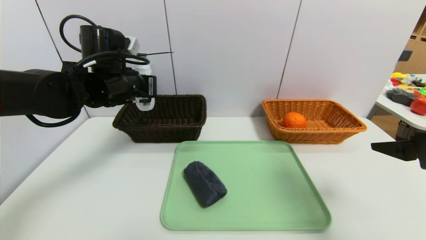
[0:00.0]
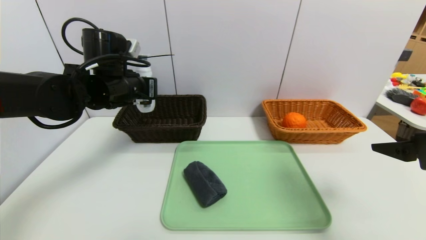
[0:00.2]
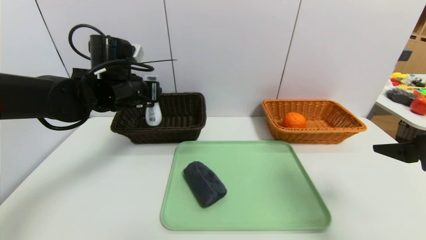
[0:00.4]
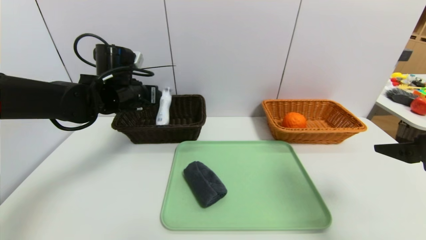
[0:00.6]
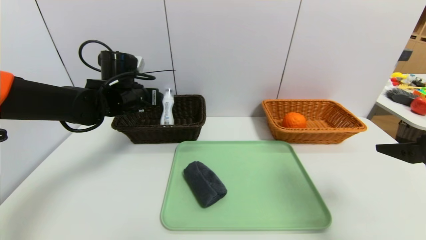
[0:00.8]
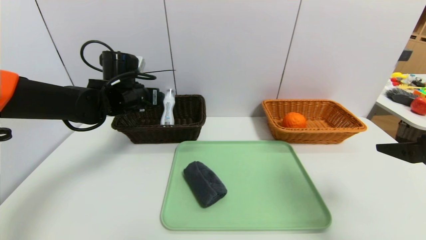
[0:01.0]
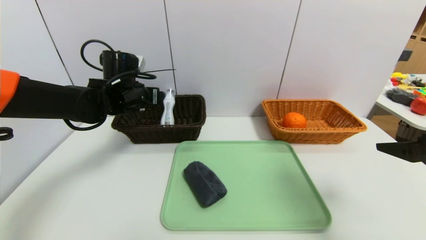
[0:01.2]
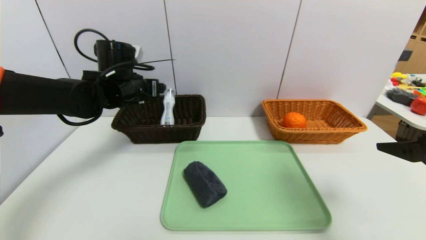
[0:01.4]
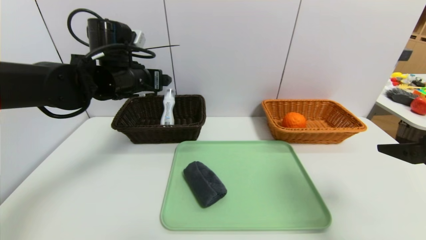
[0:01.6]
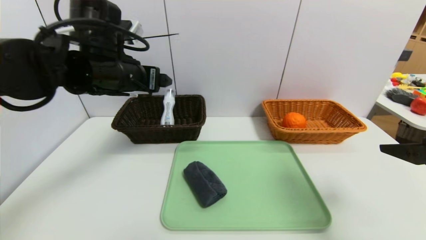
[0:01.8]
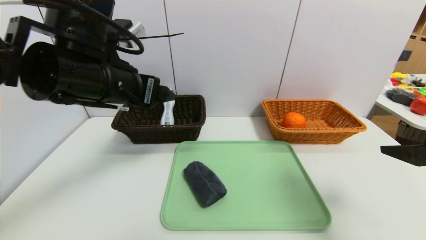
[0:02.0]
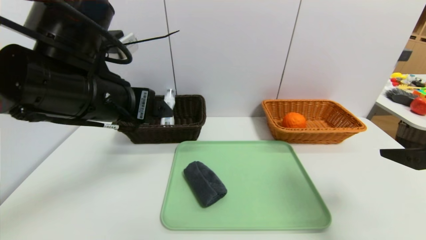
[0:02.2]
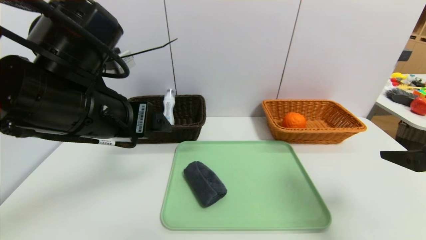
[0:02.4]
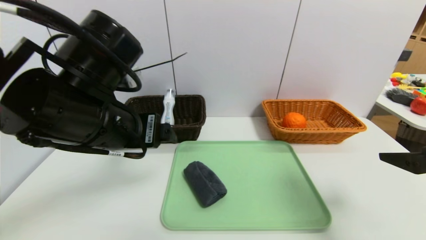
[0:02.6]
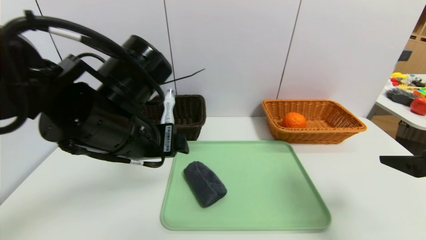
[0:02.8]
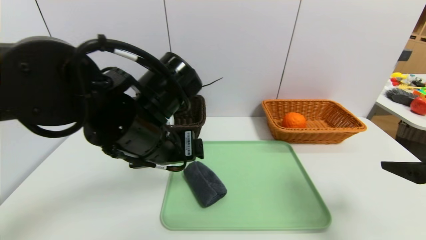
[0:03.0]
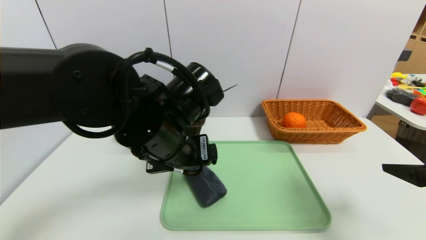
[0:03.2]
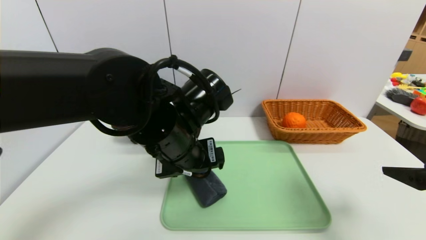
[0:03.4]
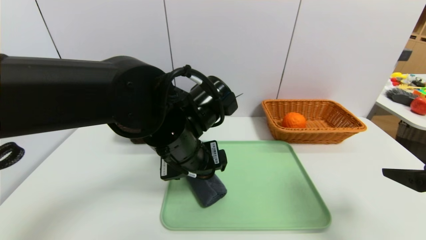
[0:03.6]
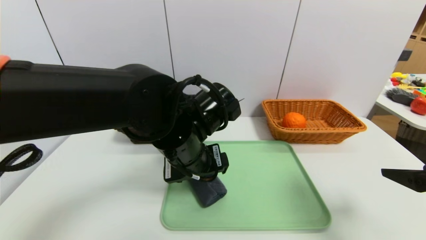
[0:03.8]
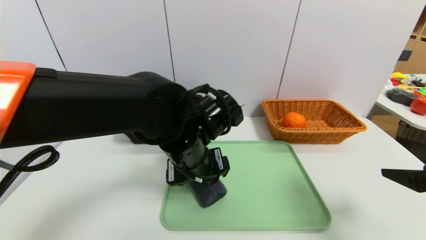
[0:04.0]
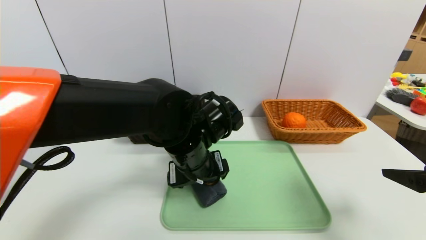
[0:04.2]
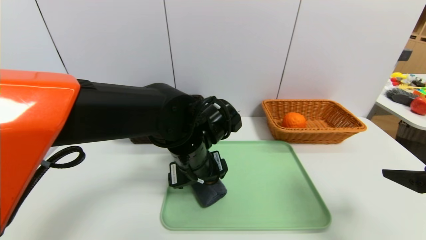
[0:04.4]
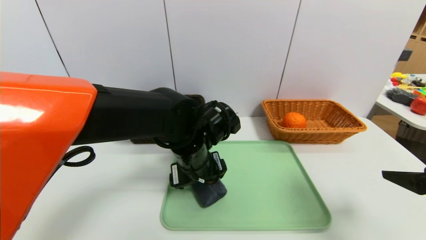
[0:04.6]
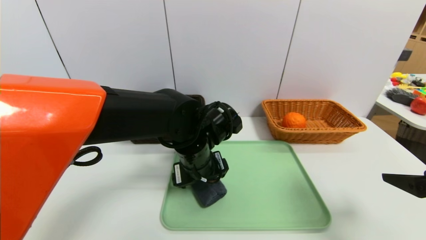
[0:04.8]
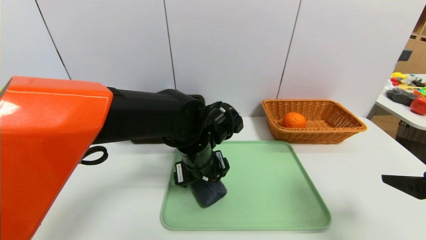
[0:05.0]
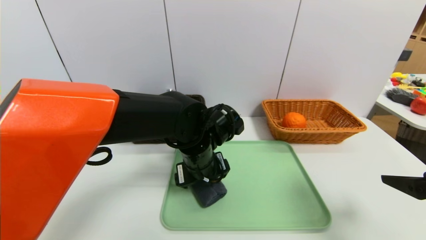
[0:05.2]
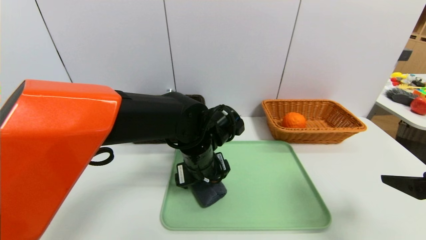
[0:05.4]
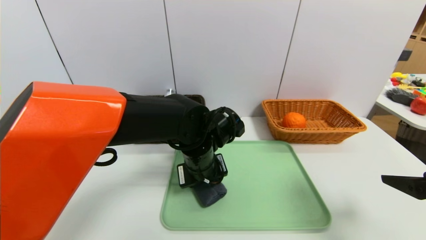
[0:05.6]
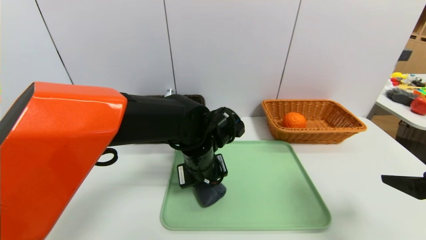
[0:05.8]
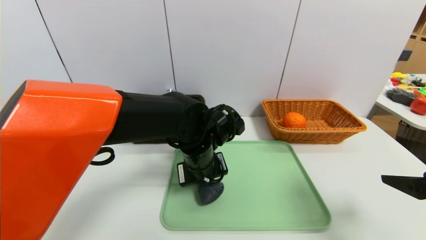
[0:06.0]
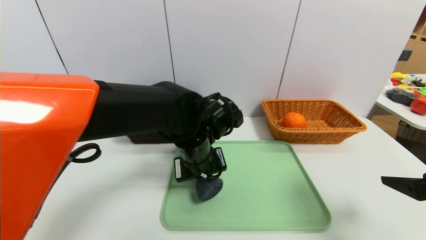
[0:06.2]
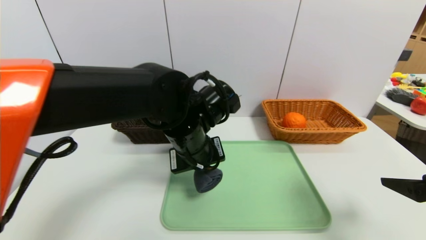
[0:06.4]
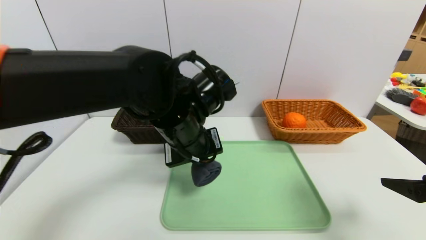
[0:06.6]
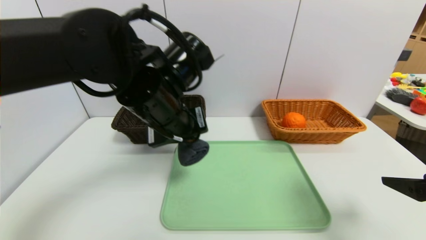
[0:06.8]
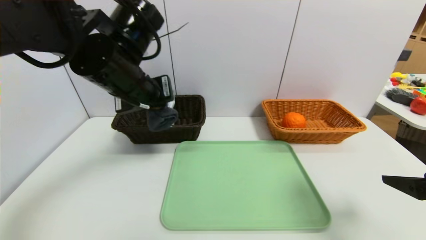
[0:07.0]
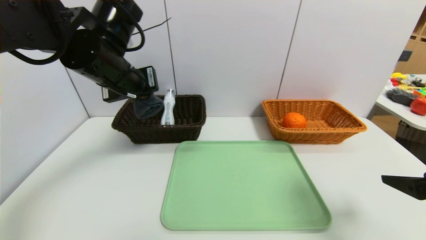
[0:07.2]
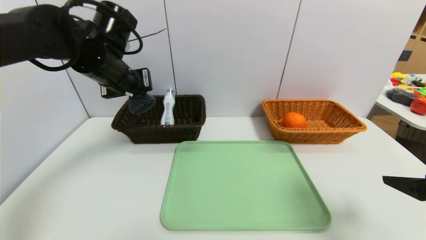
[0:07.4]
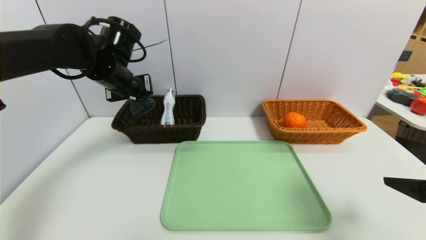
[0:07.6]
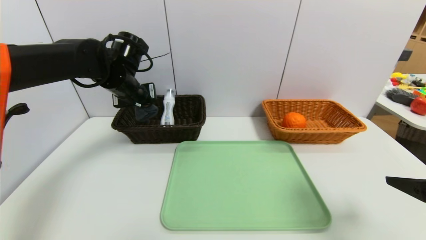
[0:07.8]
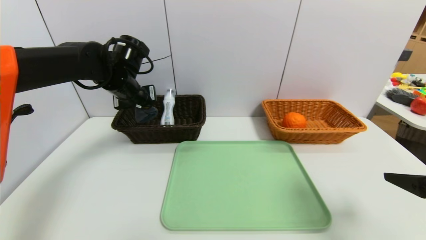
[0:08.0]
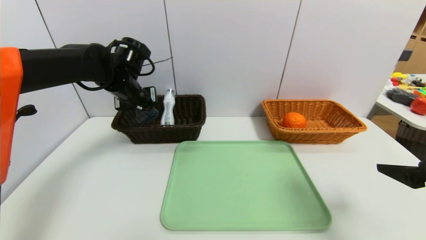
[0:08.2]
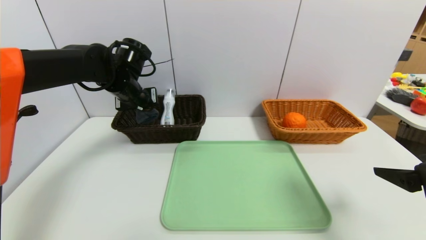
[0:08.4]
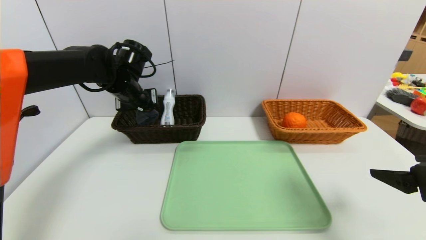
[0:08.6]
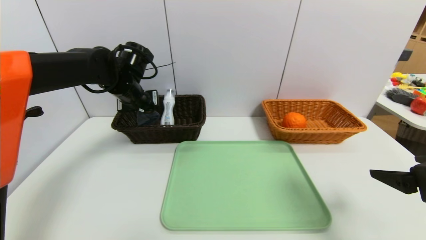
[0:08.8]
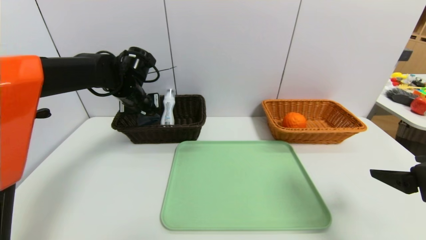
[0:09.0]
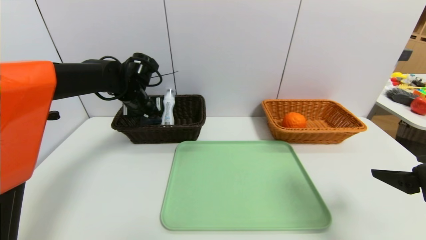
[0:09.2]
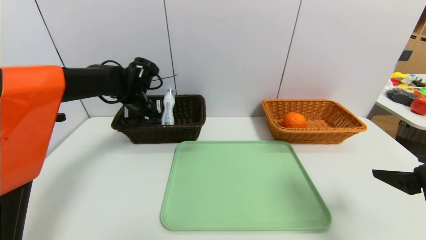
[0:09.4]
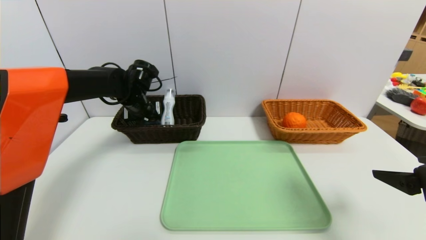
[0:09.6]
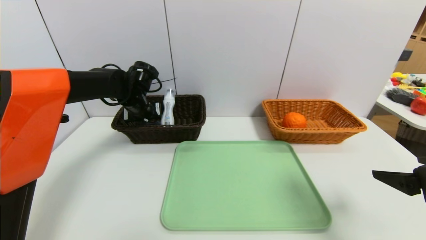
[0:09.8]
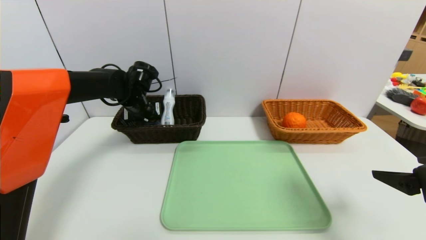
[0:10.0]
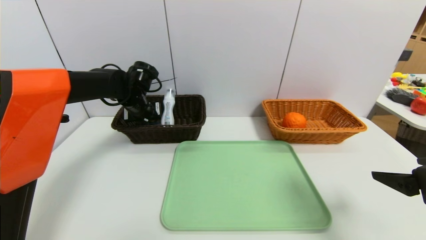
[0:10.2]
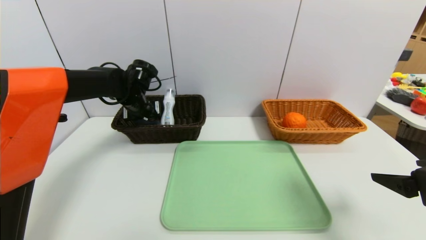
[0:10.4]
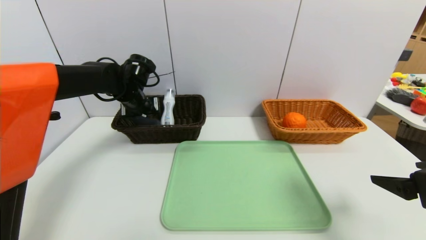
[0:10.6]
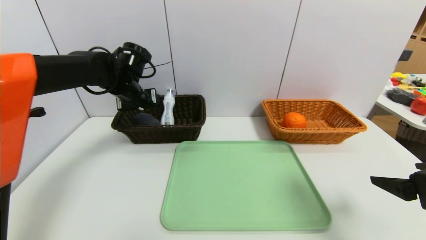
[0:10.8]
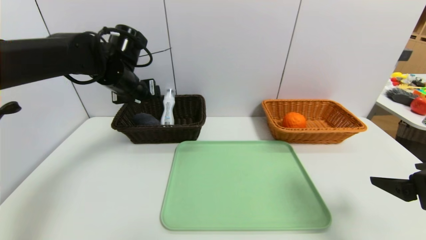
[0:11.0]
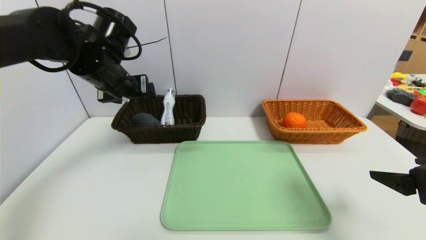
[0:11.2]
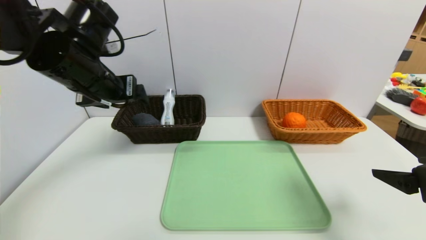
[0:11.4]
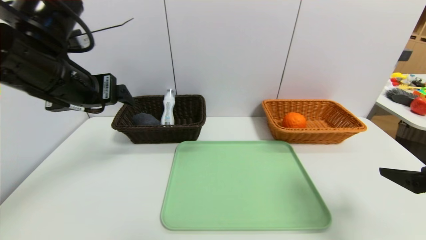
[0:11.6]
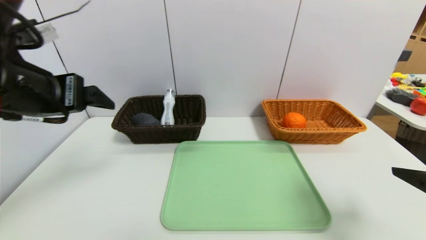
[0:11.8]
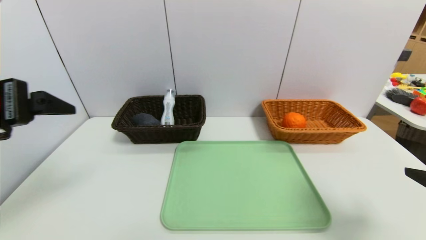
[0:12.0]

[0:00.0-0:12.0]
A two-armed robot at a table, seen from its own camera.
Task of the whole recording: place the food in the right basket with the right gripper, and place the non food items in the left basket with the left gripper.
Step, 0:01.6 to 0:10.6: Grasp the grey towel and put it in the left basket.
0:00.0 to 0:01.6: The left gripper opens.
0:01.6 to 0:03.0: The left gripper shifts approximately 15 cm backward and to the right.
0:03.0 to 0:04.4: The left gripper is displaced downward and to the right by some 10 cm.
0:04.4 to 0:06.0: The left gripper closes up.
0:06.0 to 0:07.6: The left gripper travels to the left, upward and forward by about 25 cm.
0:07.6 to 0:09.0: The left gripper shifts about 5 cm downward.
0:09.0 to 0:10.4: The left gripper opens its fingers.
0:10.4 to 0:12.0: The left gripper goes roughly 35 cm backward and upward.

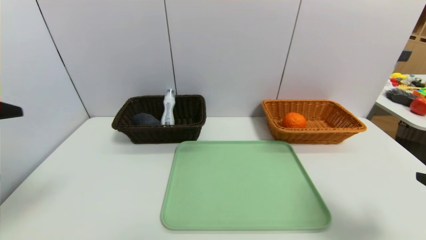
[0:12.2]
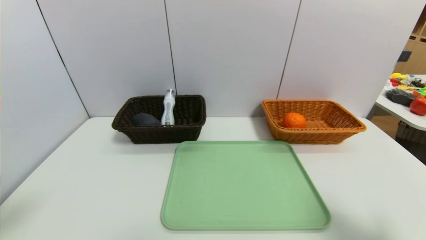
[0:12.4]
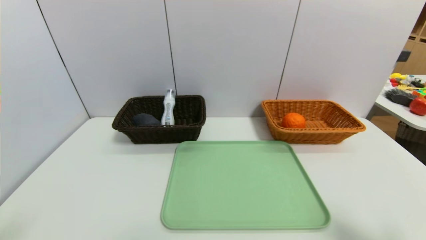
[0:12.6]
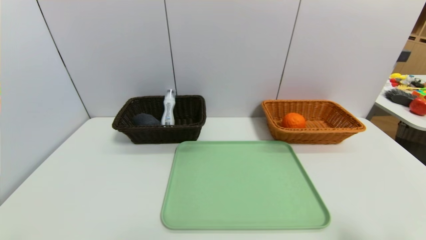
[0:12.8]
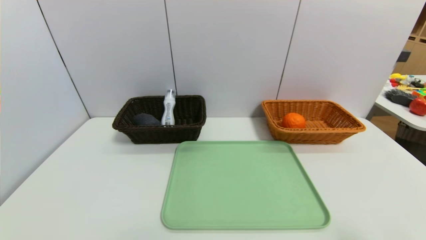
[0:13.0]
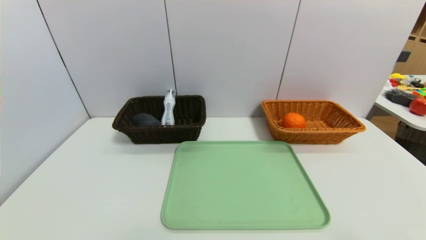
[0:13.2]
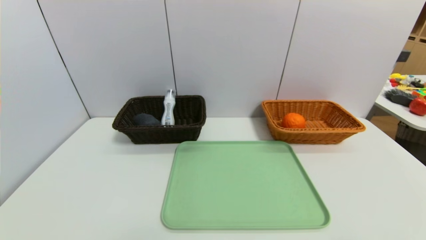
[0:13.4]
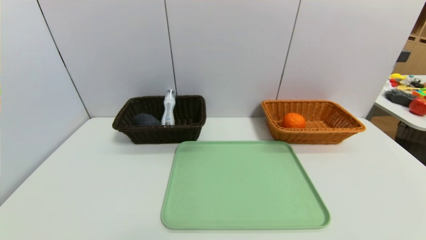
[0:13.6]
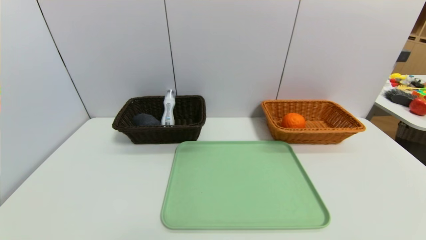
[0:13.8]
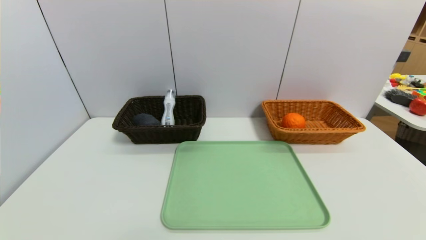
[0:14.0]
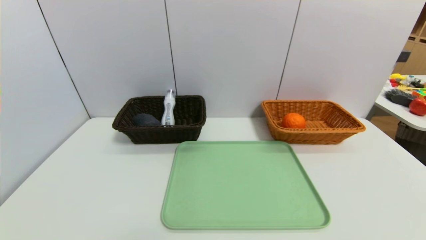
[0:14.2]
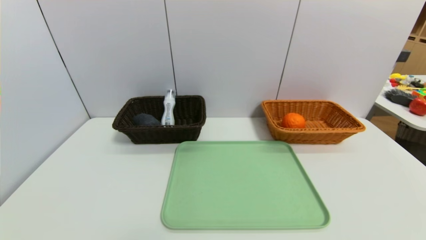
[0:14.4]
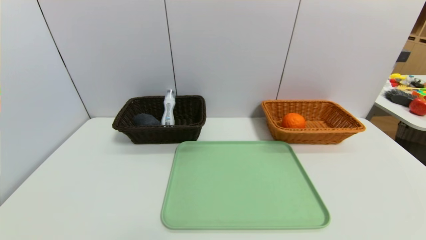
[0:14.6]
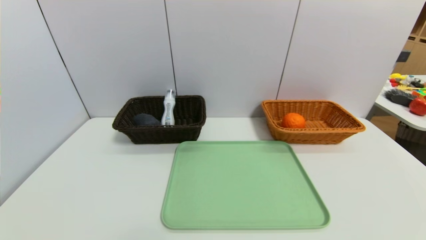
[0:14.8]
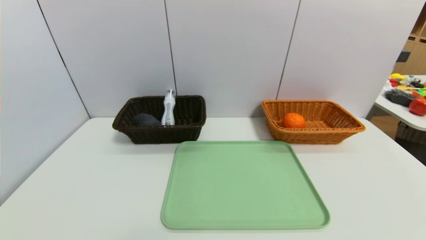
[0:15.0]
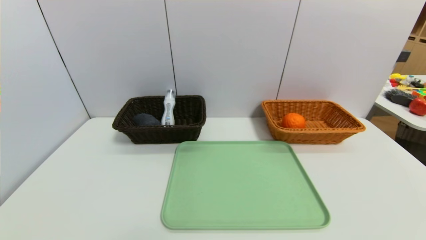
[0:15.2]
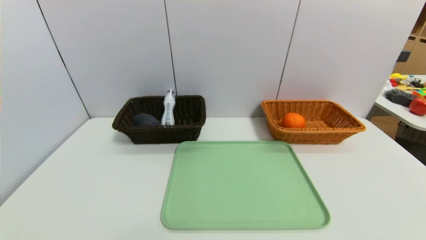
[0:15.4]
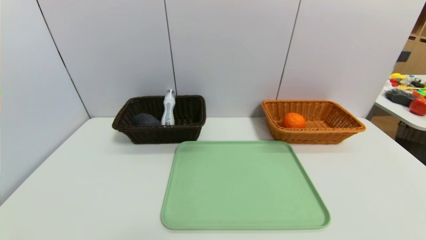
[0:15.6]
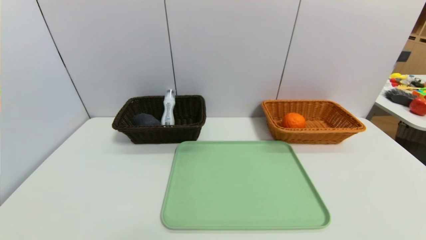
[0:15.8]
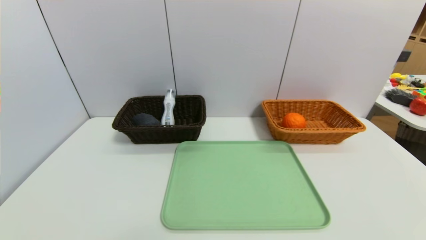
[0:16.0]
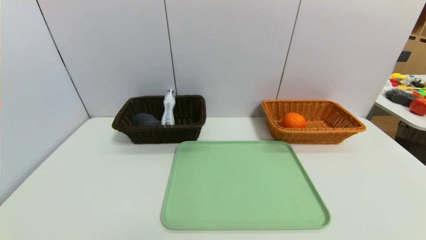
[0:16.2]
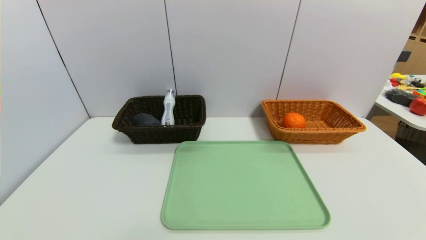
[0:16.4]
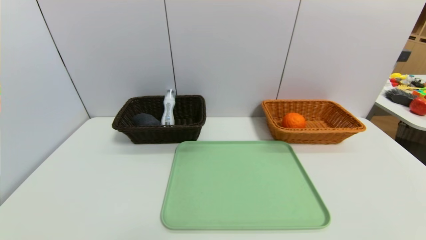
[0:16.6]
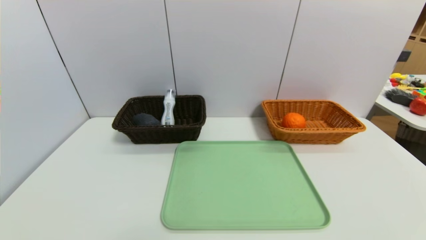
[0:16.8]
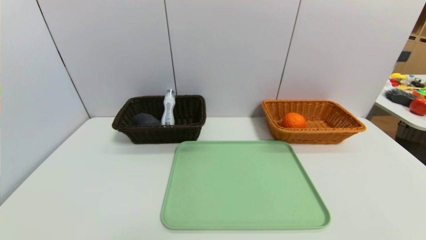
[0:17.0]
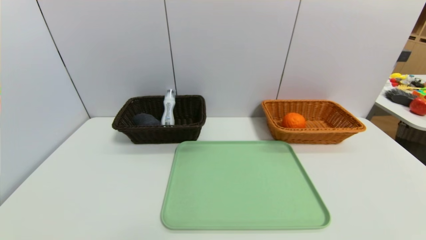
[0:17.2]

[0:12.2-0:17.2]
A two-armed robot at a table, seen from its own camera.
Task of the whole recording: place the food in the right basket with the right gripper, and place the non food items in the left basket with the left gripper.
0:12.2 to 0:13.8: The right gripper goes roughly 10 cm backward, while the left gripper travels backward and downward by approximately 20 cm.
